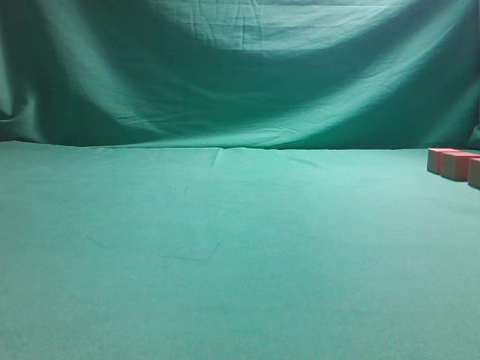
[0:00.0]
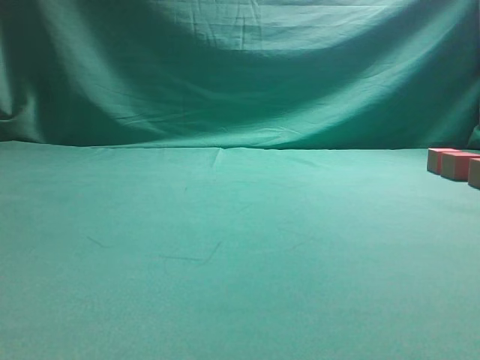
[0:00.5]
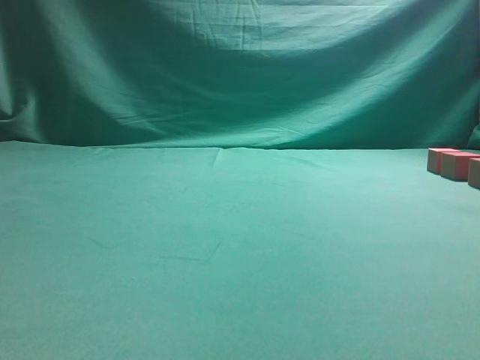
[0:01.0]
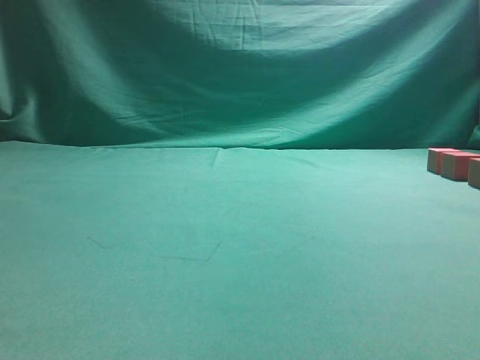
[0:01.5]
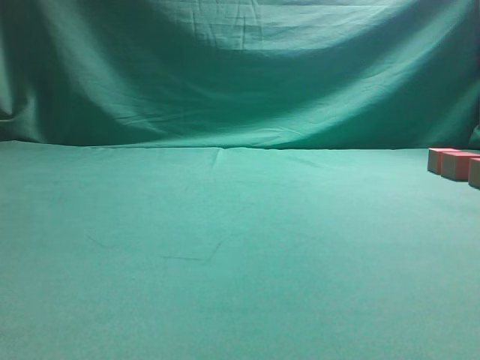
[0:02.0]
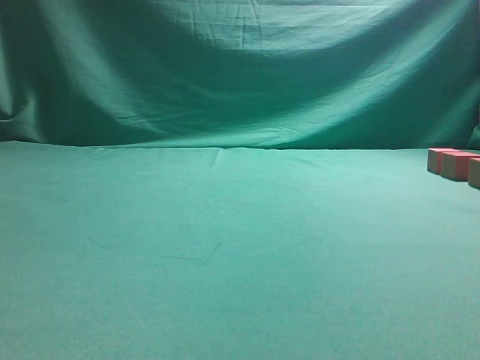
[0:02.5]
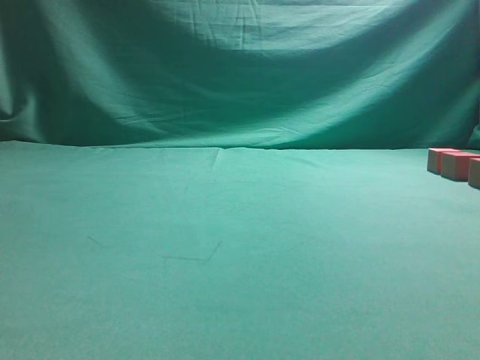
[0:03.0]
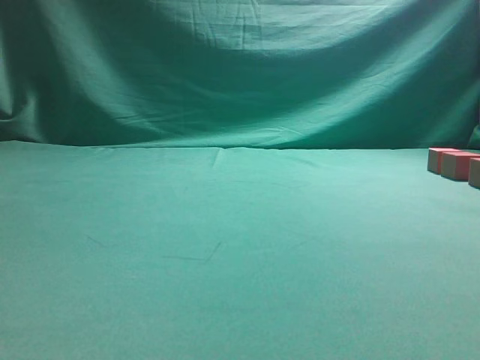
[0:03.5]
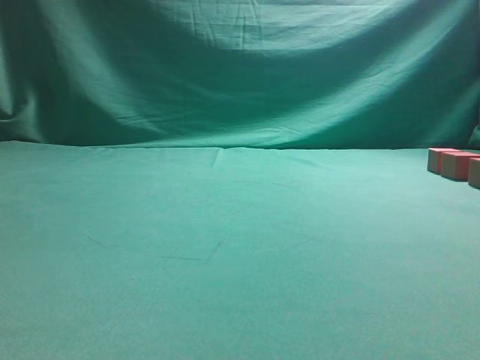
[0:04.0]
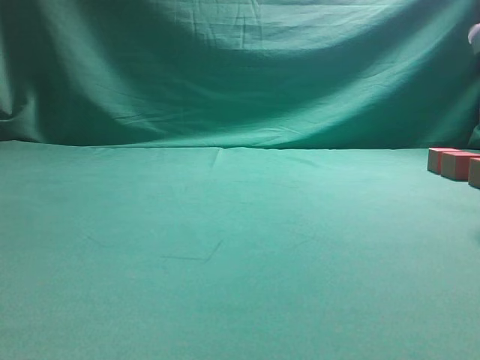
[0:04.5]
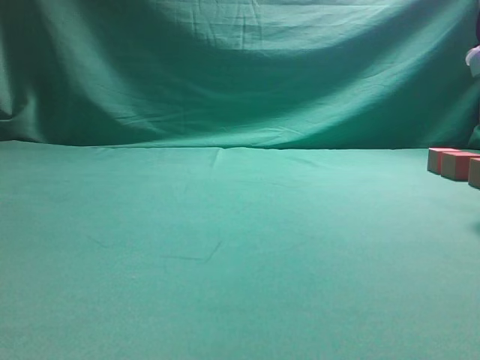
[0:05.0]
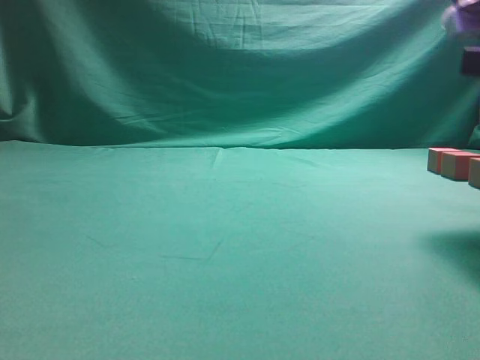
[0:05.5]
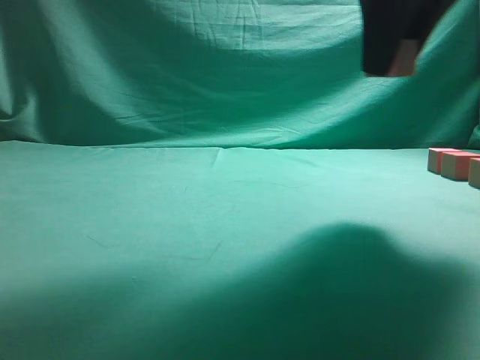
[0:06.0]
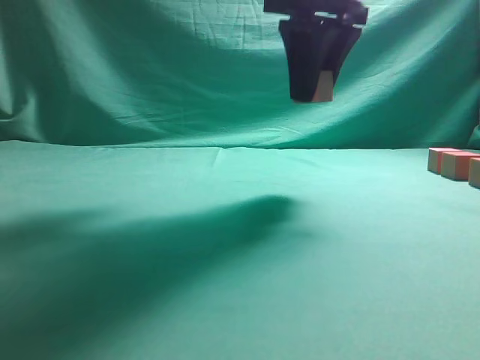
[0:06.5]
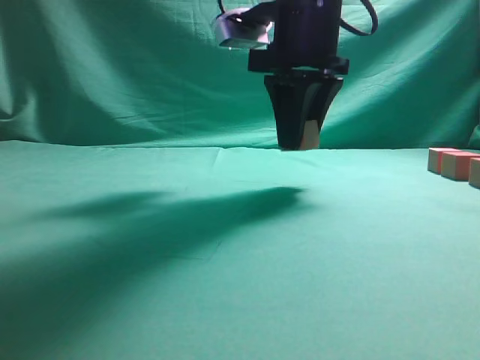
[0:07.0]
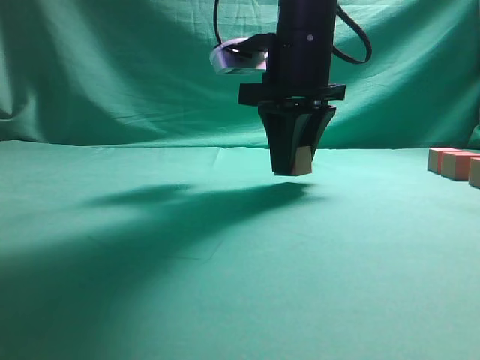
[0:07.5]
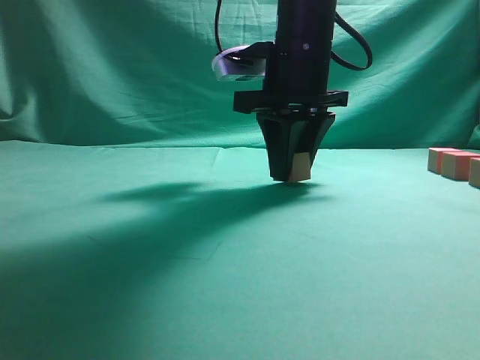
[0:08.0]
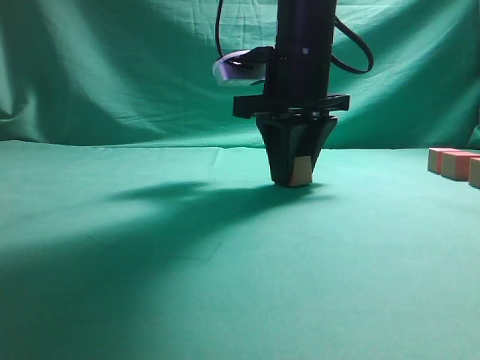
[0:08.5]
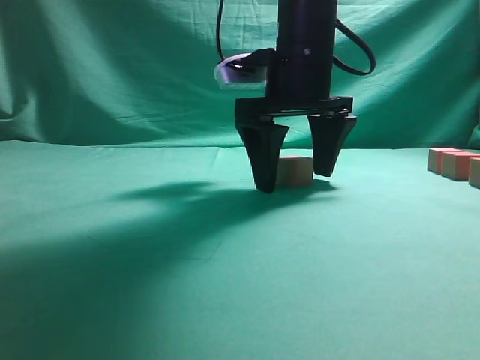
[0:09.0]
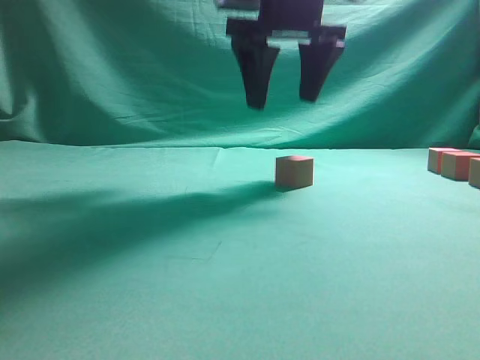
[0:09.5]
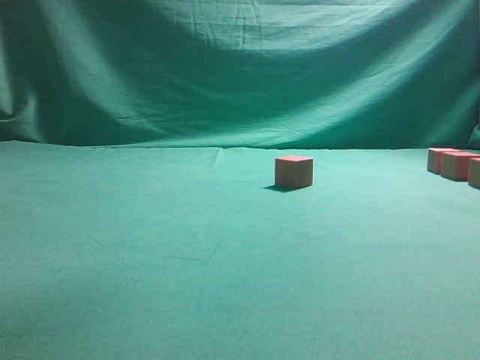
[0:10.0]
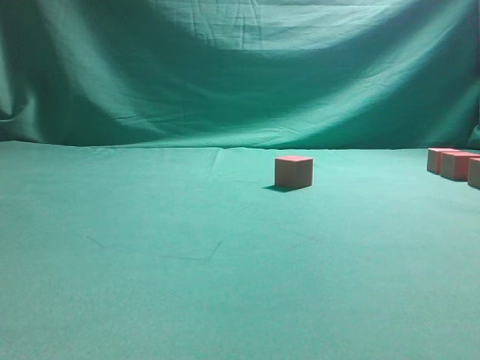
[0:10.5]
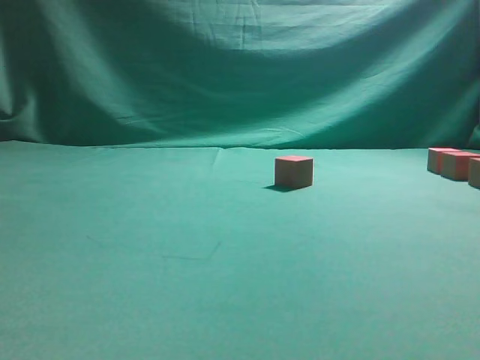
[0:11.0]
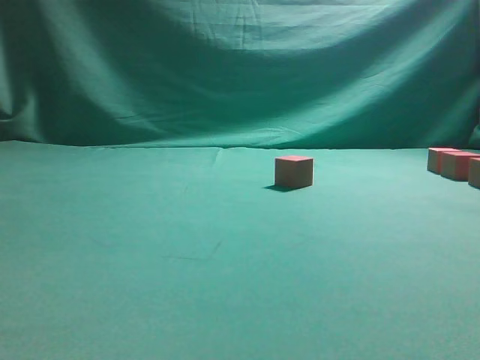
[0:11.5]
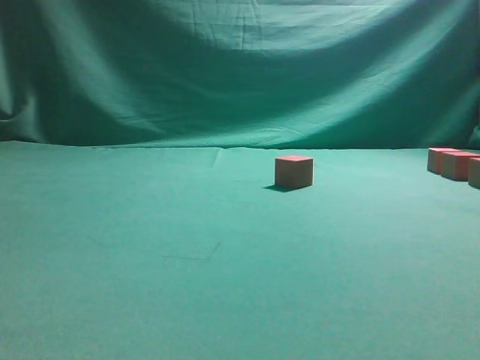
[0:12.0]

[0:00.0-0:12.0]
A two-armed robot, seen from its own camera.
Task of the whole recording: pick up the multiple cubes in two columns one by one and place them in another position on the table.
Step, 0:06.0 to 0:09.0: Place the block at the correct position to assemble the letter S.
0:04.0 to 0:06.0: The right gripper is displaced to the left and upward by approximately 15 cm.
0:06.0 to 0:08.0: The right gripper heads forward, downward and to the left, covering roughly 15 cm.
0:08.0 to 0:10.0: The right gripper shifts some 25 cm upward, and opens up.

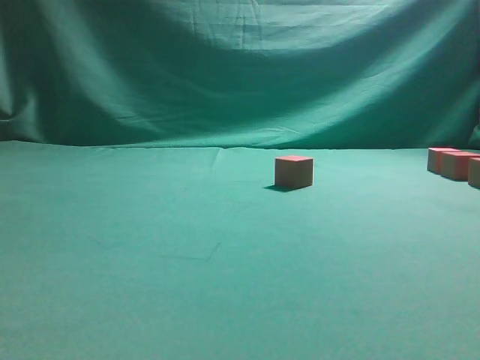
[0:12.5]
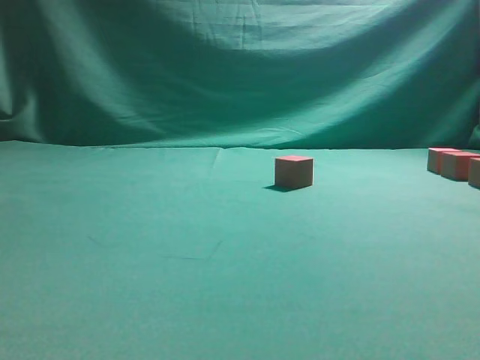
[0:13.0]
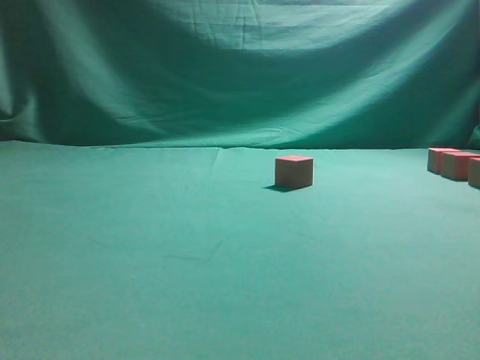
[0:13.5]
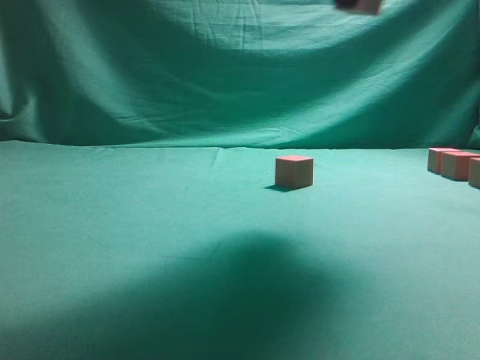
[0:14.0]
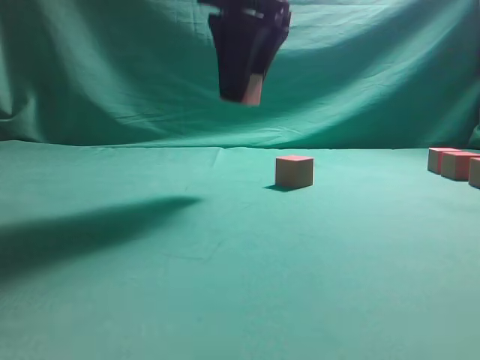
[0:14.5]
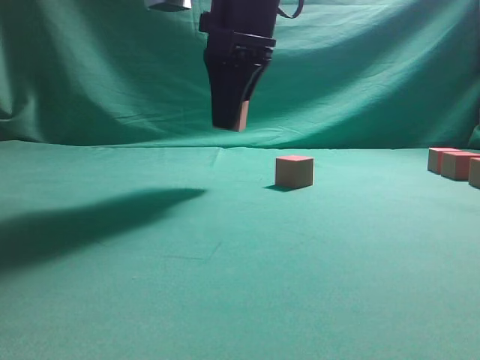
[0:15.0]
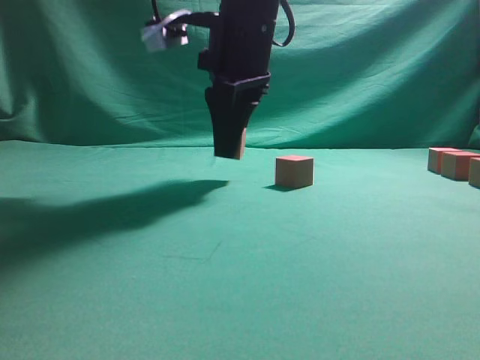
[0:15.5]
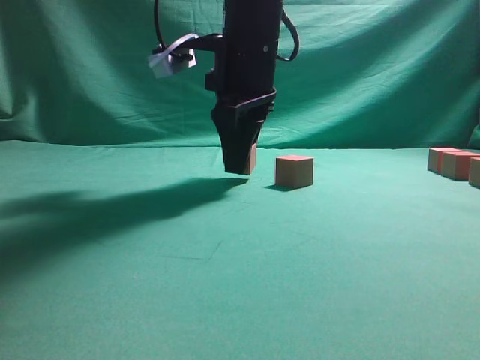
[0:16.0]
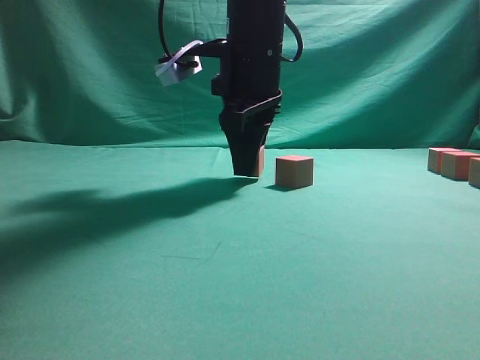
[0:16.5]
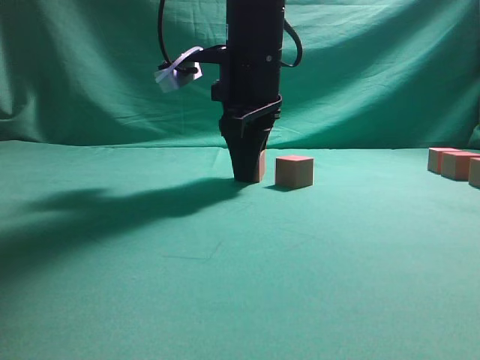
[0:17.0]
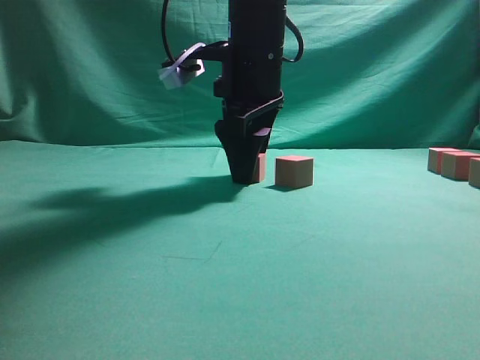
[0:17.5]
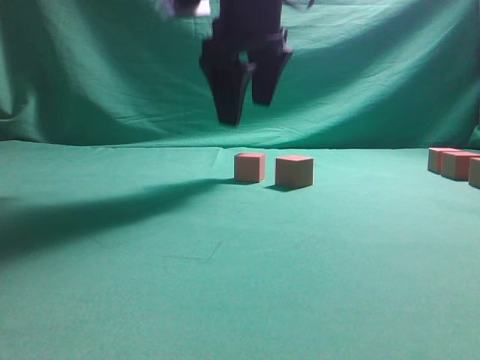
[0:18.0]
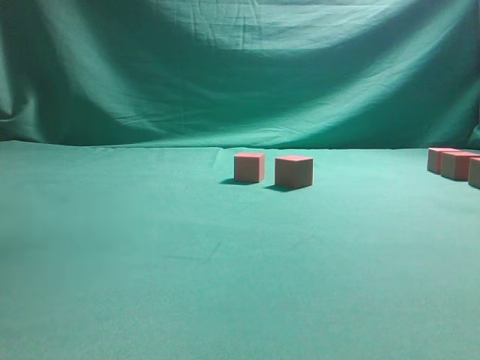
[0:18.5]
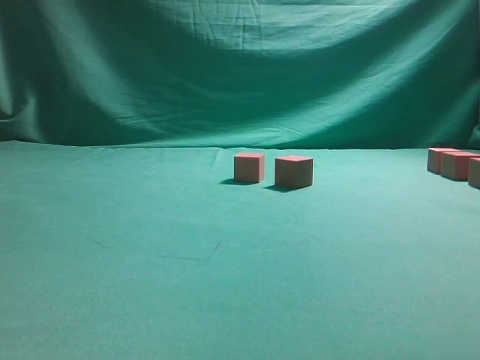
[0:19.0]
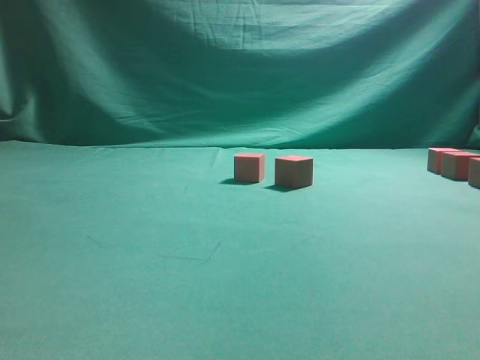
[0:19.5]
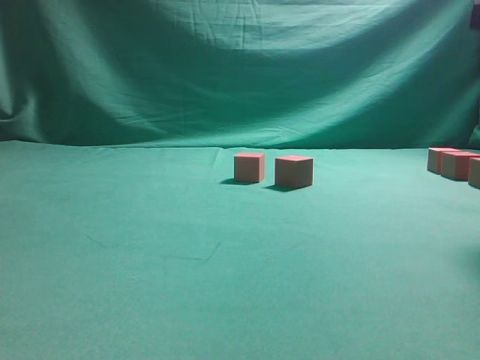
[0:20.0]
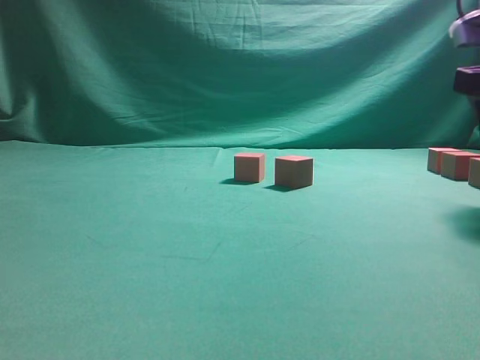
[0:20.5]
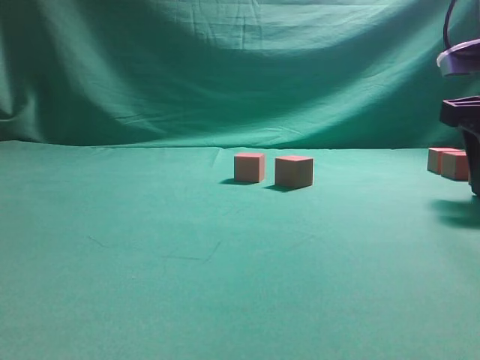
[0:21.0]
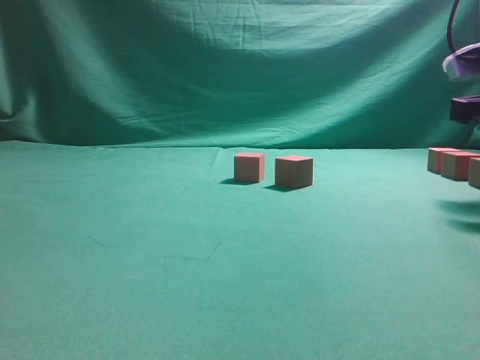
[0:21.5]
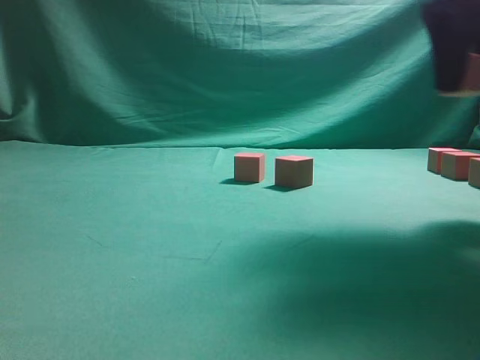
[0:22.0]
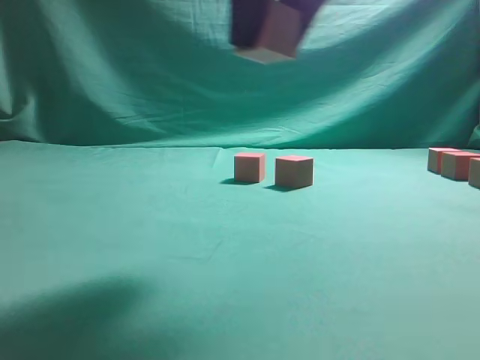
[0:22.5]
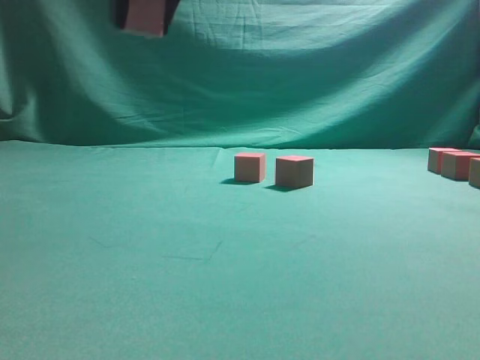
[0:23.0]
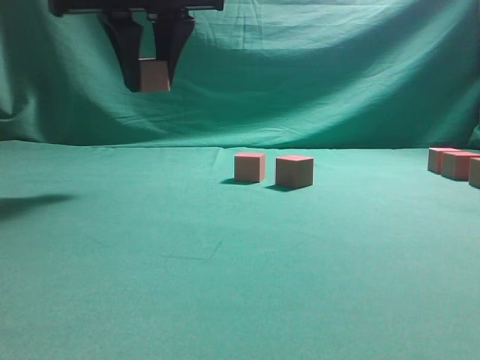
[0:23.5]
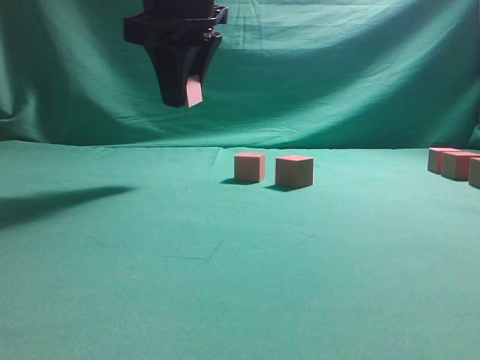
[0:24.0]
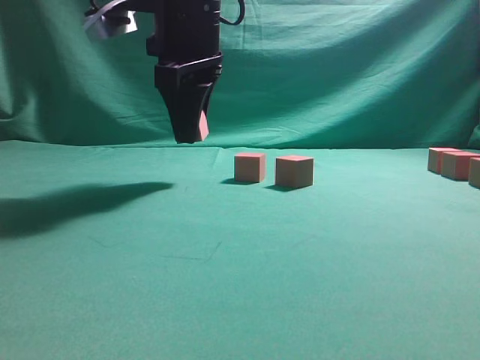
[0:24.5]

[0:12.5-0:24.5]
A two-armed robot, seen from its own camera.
Task of the whole recording: pick up the multiple cubes in two columns one by one and place them in another position on the table.
Step, 0:13.5 to 0:18.0: Place the block at the correct position to assemble the letter S.
Step, 0:18.5 to 0:21.5: Pick up the block on the table.
0:12.5 to 0:14.5: The right gripper goes about 30 cm to the left.
0:14.5 to 0:16.5: The right gripper is displaced downward by roughly 10 cm.
0:16.5 to 0:18.5: The right gripper travels upward by about 20 cm, and opens its fingers.
0:18.5 to 0:20.5: The right gripper shifts approximately 30 cm downward and to the right.
0:20.5 to 0:22.5: The right gripper shifts approximately 25 cm to the left and upward, and closes its fingers.
0:22.5 to 0:24.5: The right gripper travels forward, to the left and downward by about 20 cm.

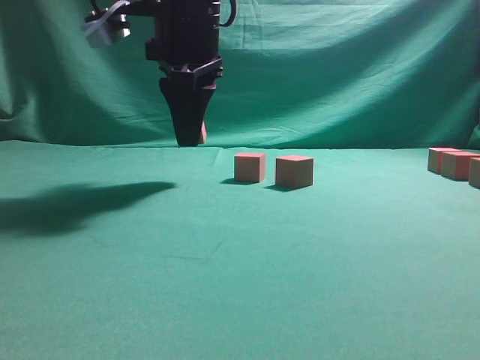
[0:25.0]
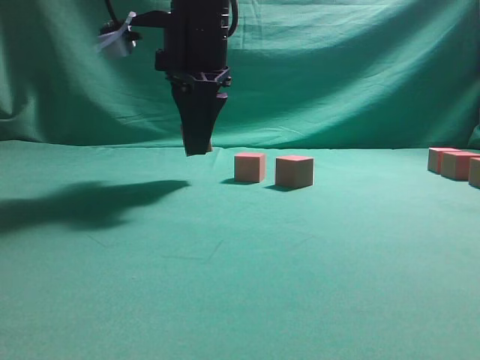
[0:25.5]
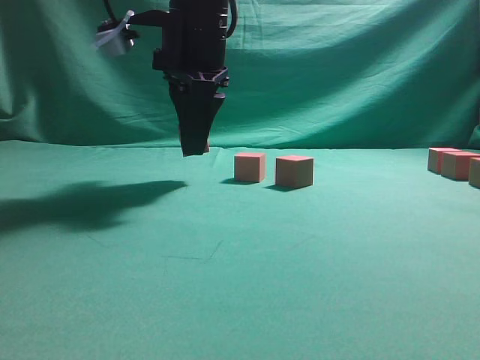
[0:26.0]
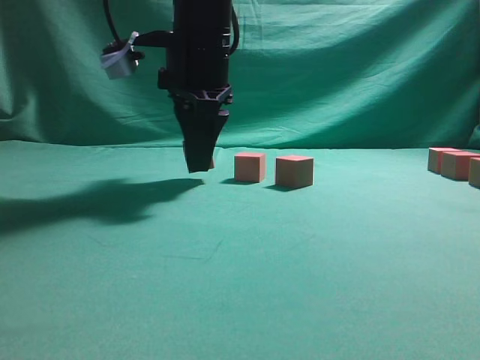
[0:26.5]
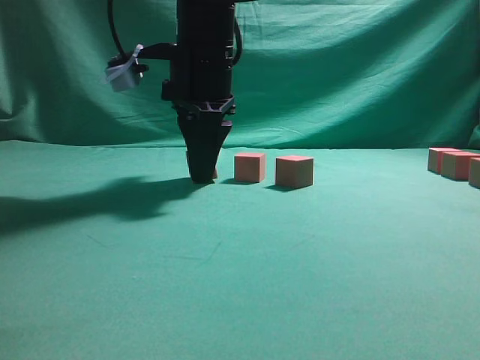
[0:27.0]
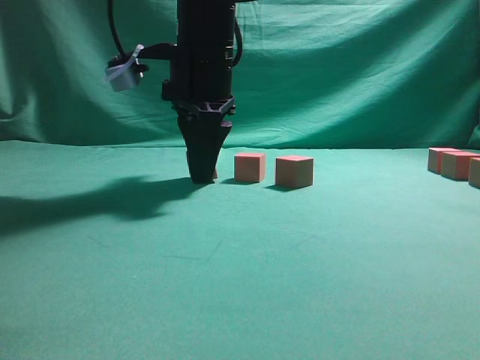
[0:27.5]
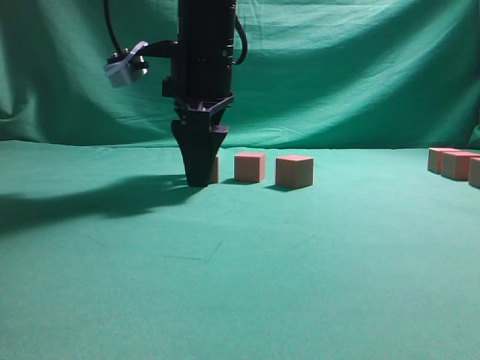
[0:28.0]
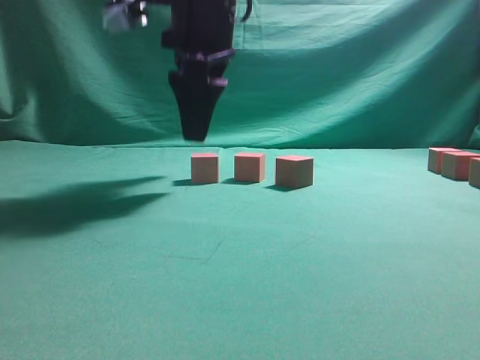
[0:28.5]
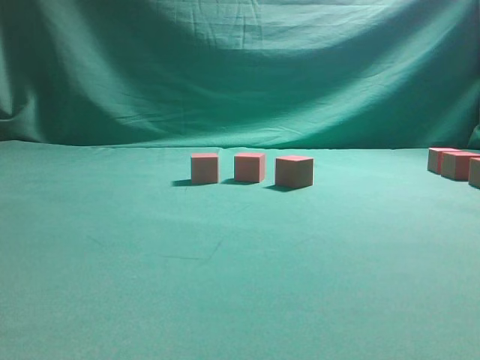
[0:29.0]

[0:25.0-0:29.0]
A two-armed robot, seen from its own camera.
Task of the whole recording: pick up the multiple cubes in two columns one by one and place them in another position on the table.
Step, 0:25.0 to 0:28.5: Place the block at the correct position to assemble the letter S.
0:25.0 to 0:27.0: The grippers make only small movements.
0:27.0 to 0:29.0: The right gripper goes about 20 cm upward.
